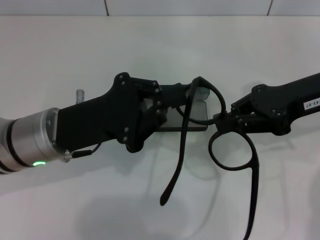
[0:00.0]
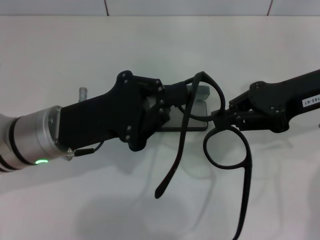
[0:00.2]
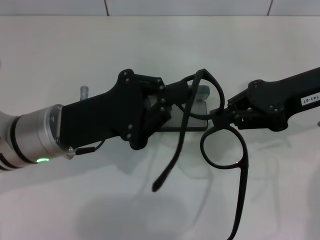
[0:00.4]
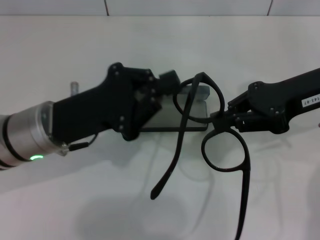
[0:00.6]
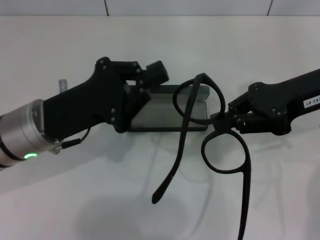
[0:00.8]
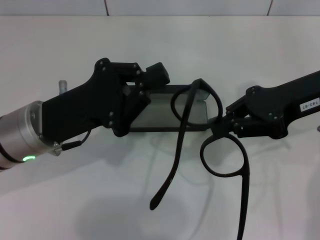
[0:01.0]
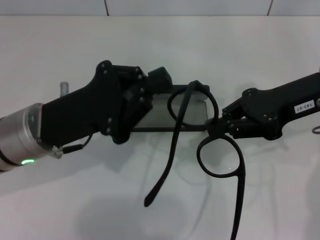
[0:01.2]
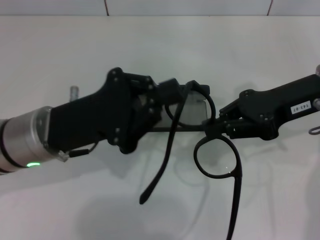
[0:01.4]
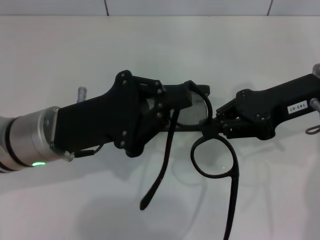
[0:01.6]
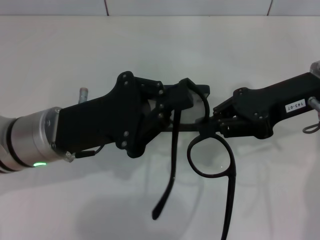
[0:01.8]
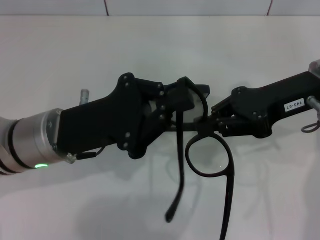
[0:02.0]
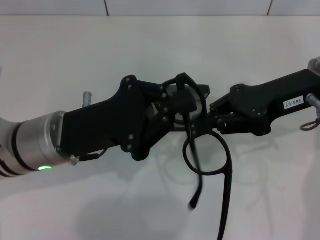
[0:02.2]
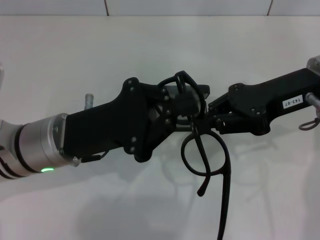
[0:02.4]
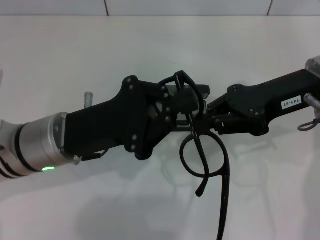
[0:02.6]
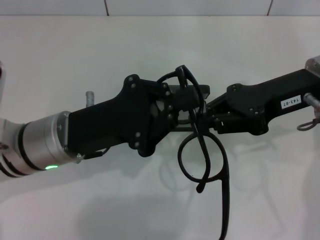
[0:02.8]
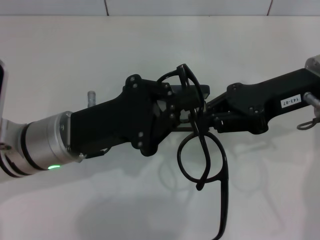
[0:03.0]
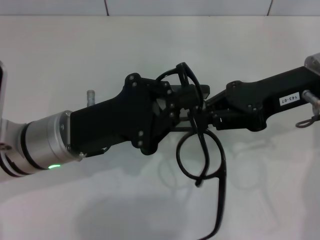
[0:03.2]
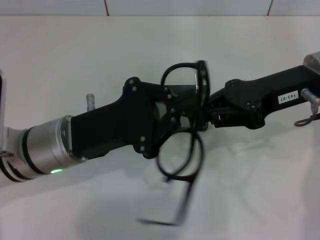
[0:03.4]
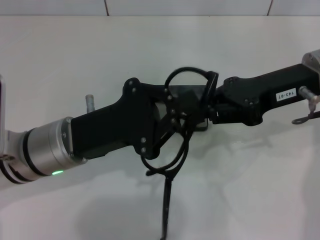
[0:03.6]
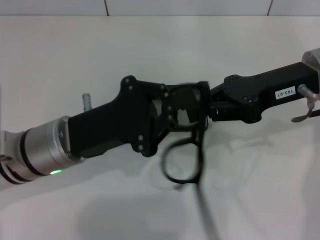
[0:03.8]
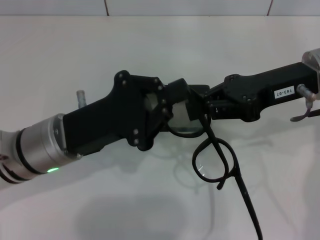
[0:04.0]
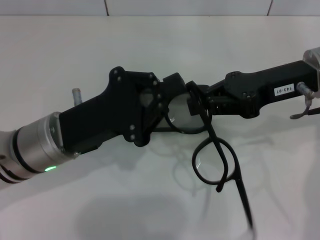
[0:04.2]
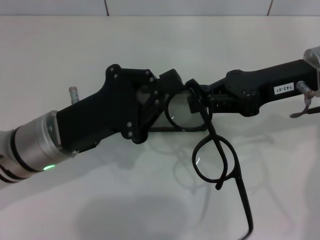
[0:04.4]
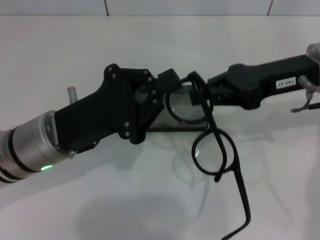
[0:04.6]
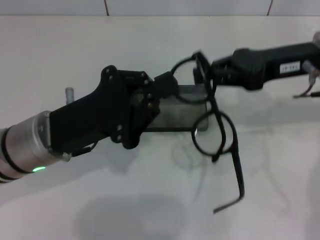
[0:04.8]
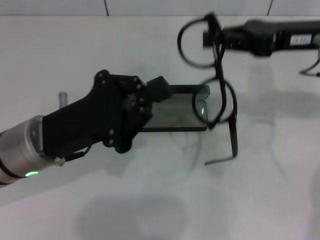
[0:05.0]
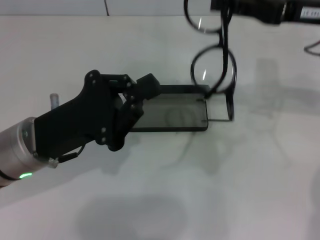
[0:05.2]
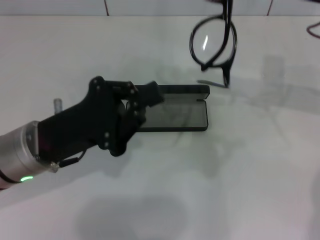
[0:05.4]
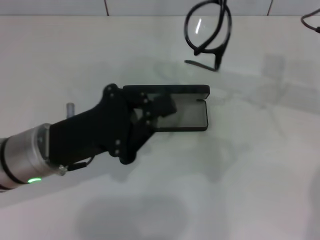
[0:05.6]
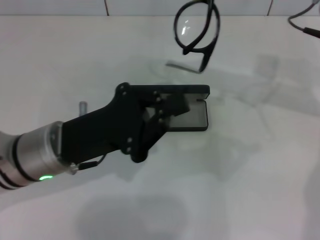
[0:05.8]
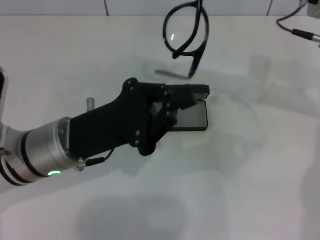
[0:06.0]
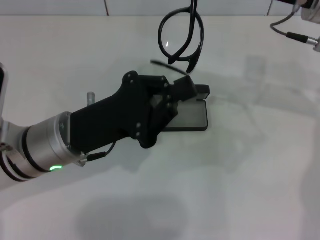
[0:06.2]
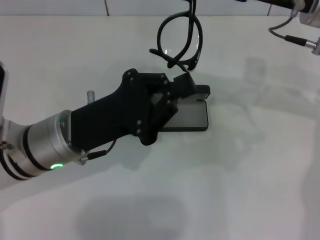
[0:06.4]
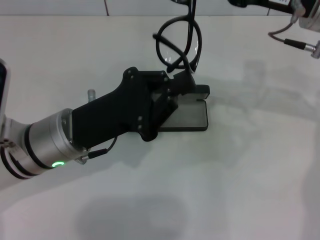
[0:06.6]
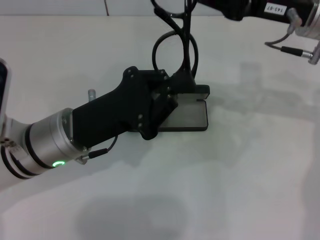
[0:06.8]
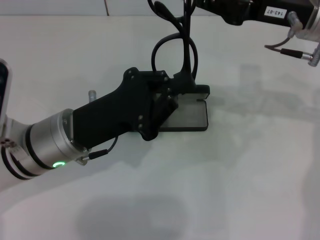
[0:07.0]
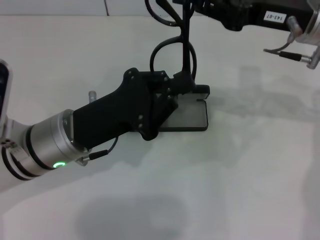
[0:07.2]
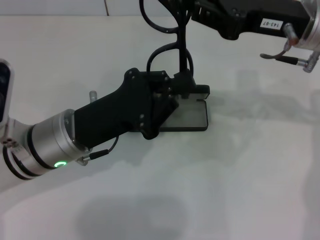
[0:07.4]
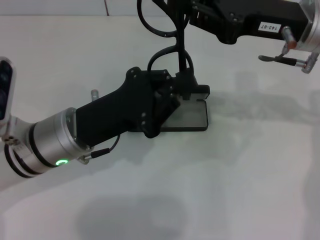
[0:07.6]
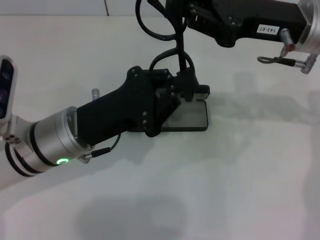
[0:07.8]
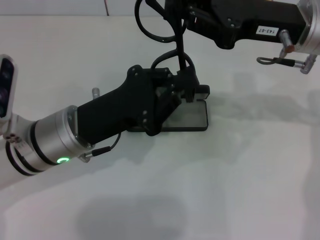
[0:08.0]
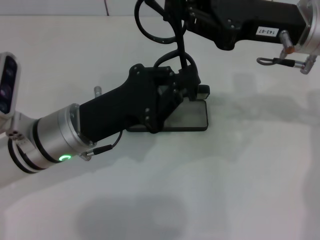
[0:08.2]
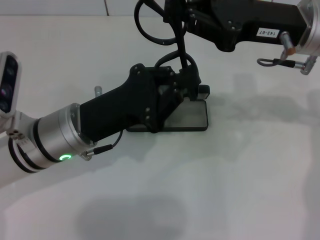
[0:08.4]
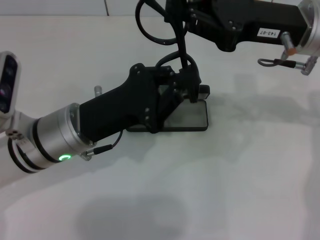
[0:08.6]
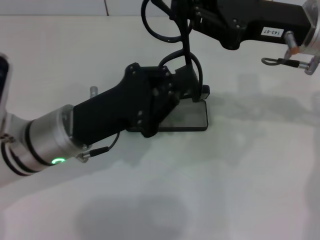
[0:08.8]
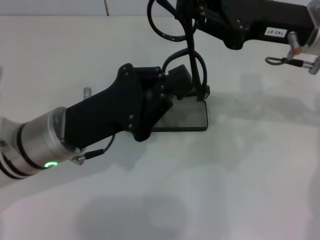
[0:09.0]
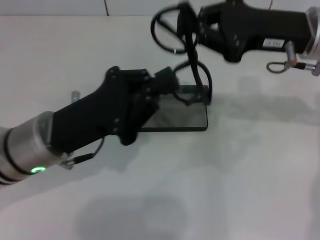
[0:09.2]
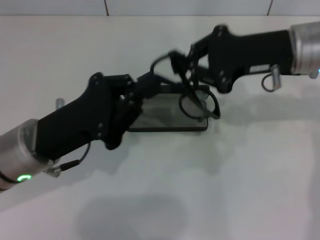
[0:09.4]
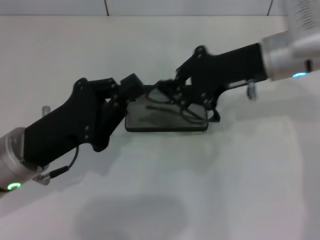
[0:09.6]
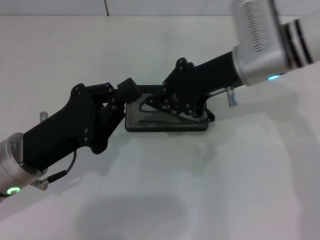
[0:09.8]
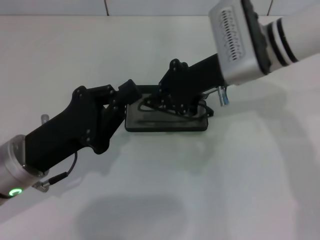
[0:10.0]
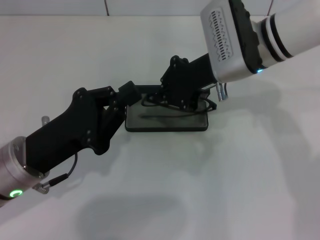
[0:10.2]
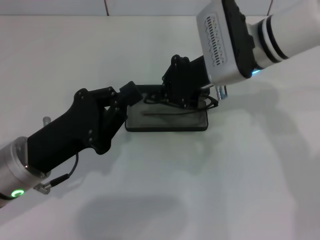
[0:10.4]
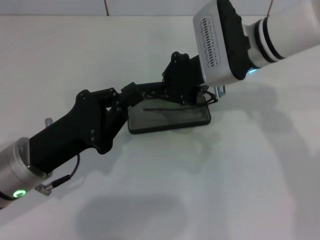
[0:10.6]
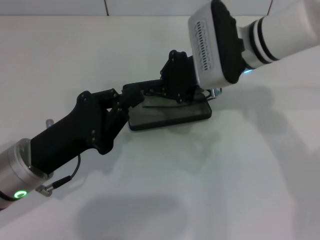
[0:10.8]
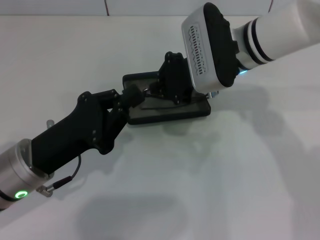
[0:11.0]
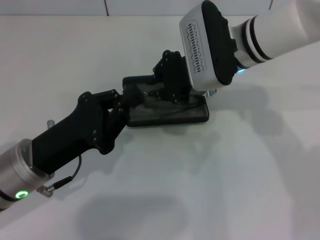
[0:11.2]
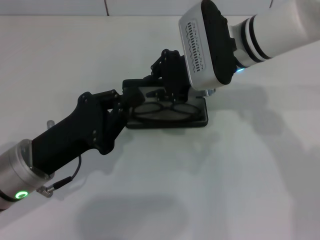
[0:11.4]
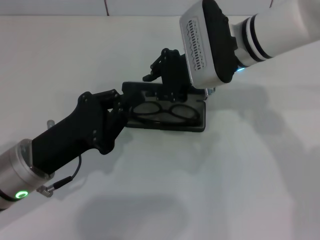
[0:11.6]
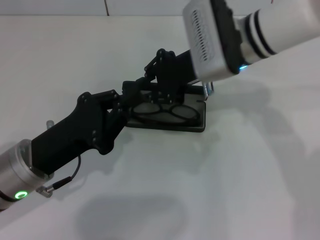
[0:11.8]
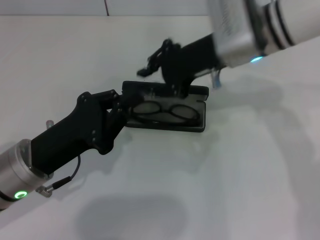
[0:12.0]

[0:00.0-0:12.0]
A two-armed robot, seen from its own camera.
Step, 0:00.0 to 0:08.8: Fold the frame with your left hand.
Step, 0:09.0 to 0:11.6: Put the glasses into the case with your right hand.
0:00.0 to 0:04.4: The grippers stay close to where they were, moving slightly.
0:04.4 to 0:06.0: The right gripper changes place by approximately 5 cm.
0:07.6 to 0:09.0: The grippers move only a little.
0:09.0 to 0:10.4: The right gripper heads to the left, covering some 10 cm. The left gripper moves approximately 5 cm.
0:10.4 to 0:12.0: The grippers stay close to where they were, moving slightly.

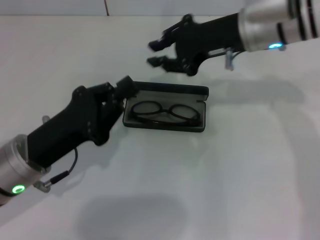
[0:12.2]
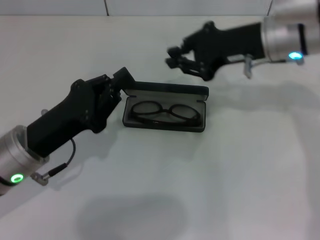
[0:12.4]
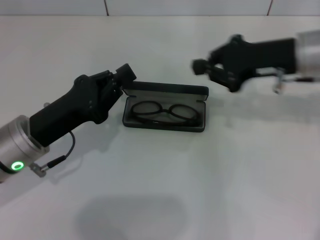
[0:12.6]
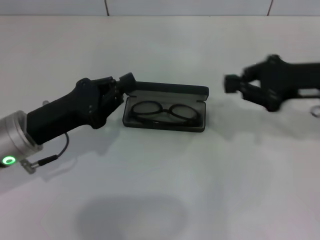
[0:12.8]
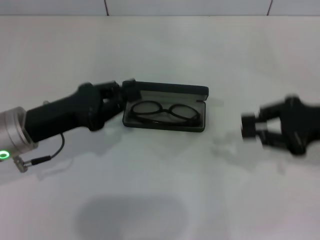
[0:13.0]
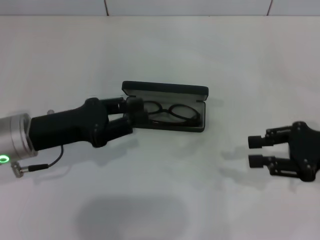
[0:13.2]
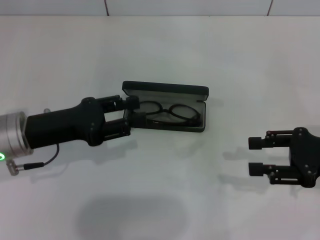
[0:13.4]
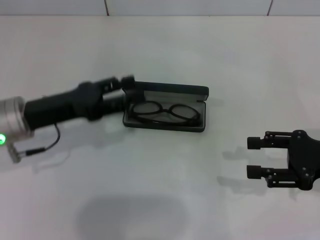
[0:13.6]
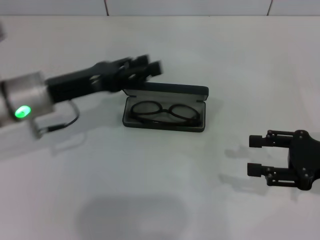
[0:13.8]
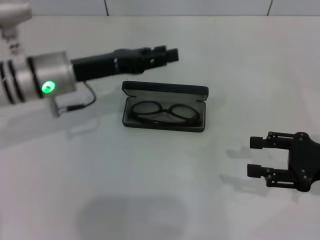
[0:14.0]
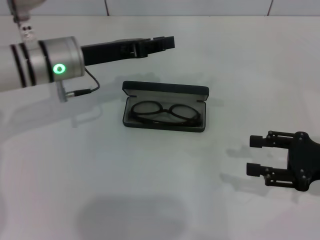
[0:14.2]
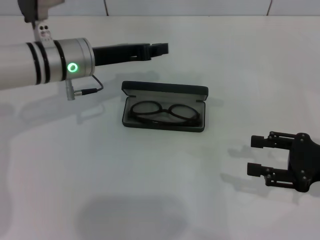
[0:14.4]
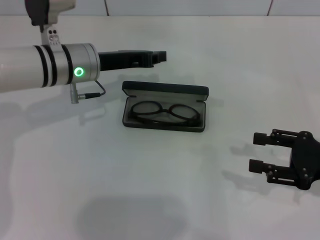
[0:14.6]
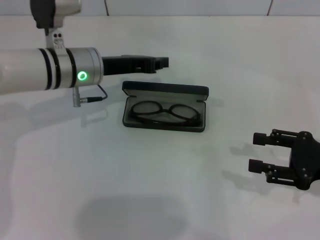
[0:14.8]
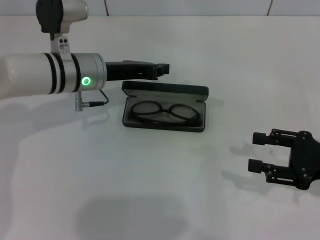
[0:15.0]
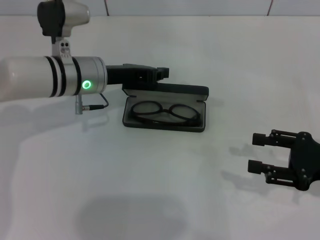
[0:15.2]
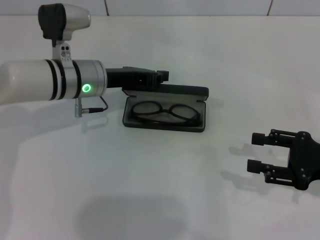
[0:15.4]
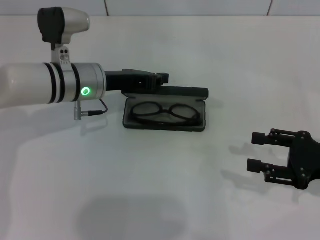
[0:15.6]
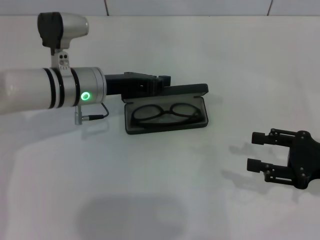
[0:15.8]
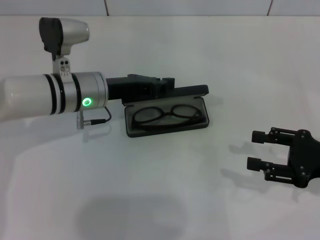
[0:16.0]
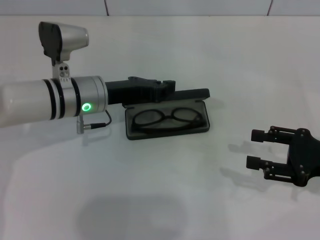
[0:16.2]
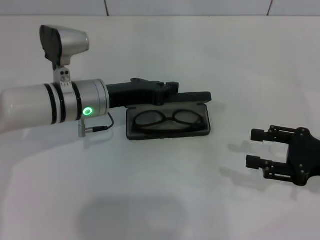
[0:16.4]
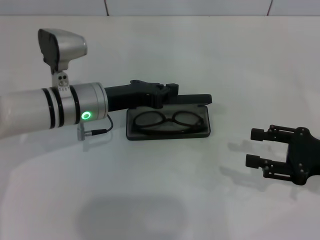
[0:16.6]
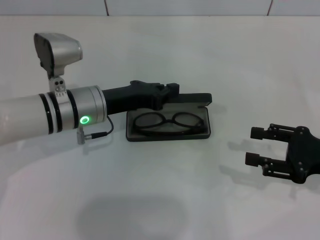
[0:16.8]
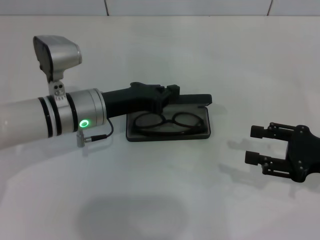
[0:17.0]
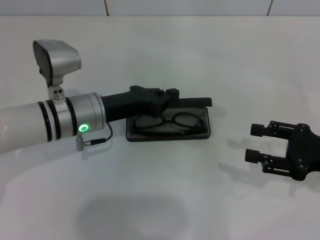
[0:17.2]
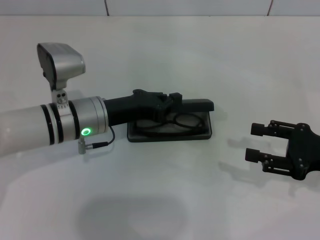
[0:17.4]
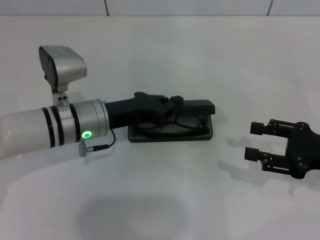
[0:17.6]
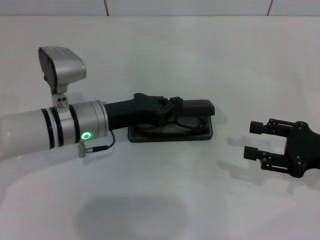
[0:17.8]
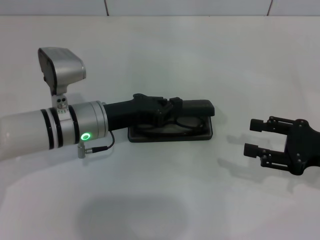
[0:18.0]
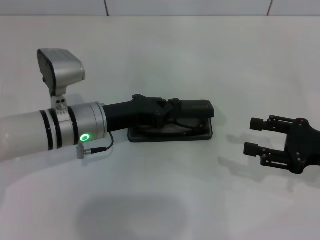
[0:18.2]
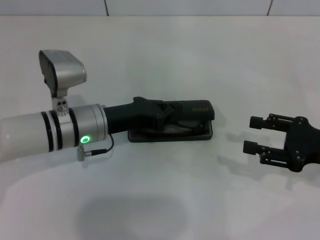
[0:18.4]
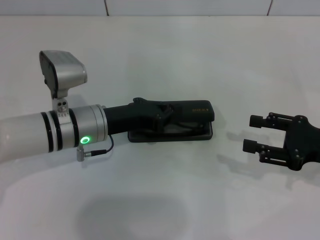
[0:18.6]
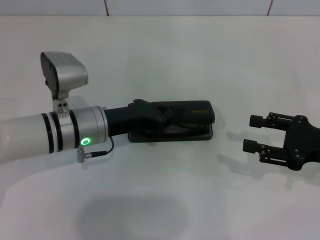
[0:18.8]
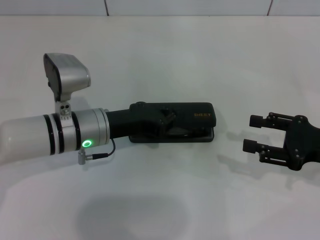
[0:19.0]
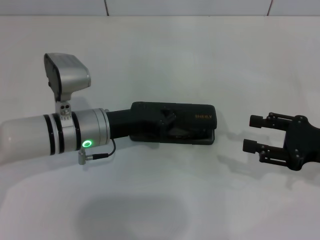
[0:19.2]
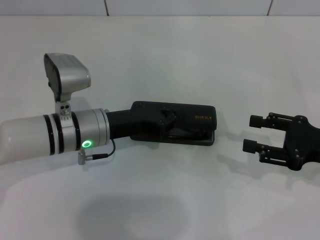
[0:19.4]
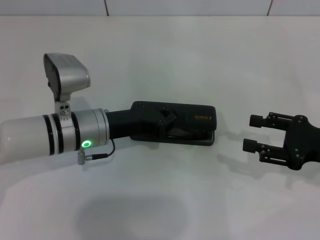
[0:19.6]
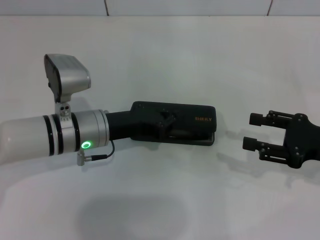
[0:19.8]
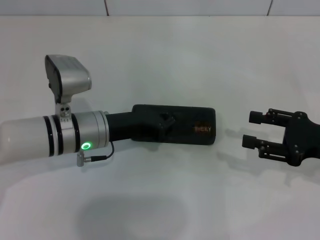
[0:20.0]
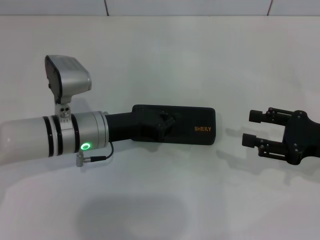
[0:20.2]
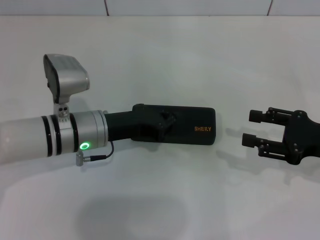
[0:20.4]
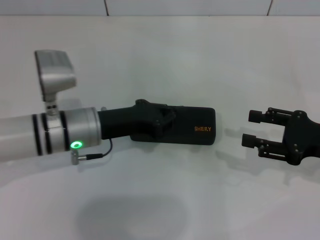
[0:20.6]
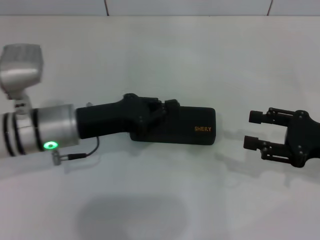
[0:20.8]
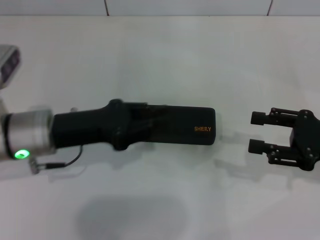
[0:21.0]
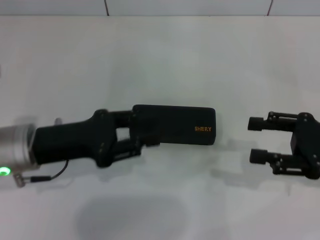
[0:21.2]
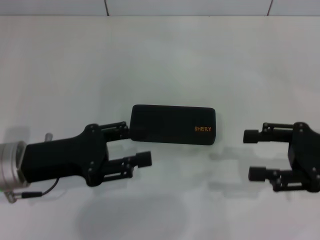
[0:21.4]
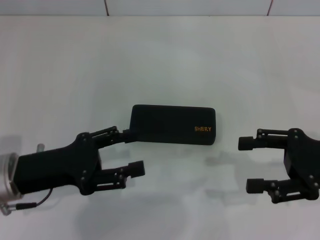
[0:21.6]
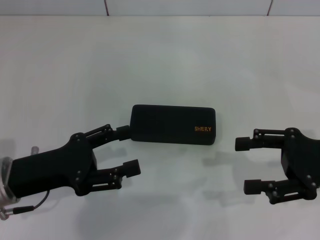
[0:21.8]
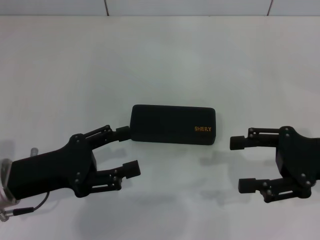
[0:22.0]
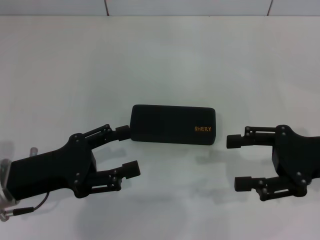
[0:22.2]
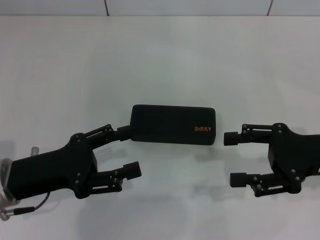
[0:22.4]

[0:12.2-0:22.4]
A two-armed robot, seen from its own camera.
Step, 0:12.2 to 0:20.4: Close the glasses case with your left hand.
0:12.2 to 0:13.6: The right gripper moves to the right, backward and downward, about 25 cm, and opens. The left gripper goes roughly 5 cm forward, and opens.
0:13.6 to 0:15.2: The left gripper shifts some 15 cm forward and to the right, and closes its fingers.
0:15.2 to 0:16.6: The grippers make only small movements.
0:16.6 to 0:18.0: The grippers make only small movements.
0:18.0 to 0:19.4: The two grippers keep their place.
0:19.4 to 0:21.0: The left gripper moves to the left, roughly 5 cm.
0:21.0 to 0:22.4: The left gripper travels backward by about 5 cm, and opens its fingers.
